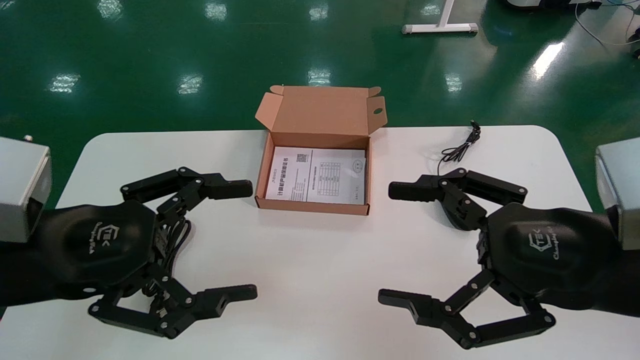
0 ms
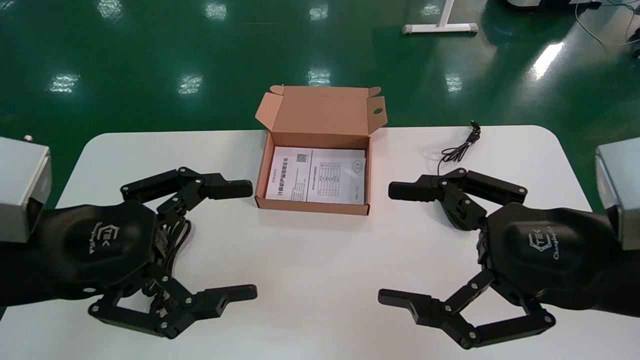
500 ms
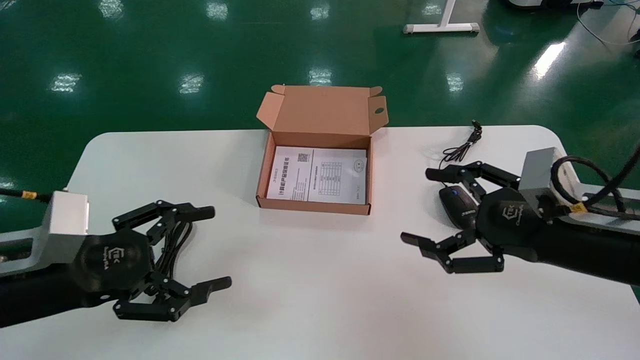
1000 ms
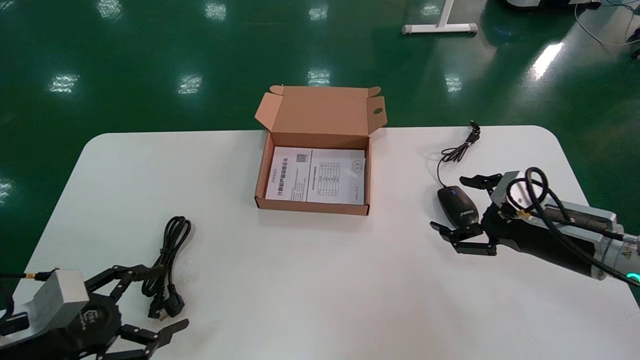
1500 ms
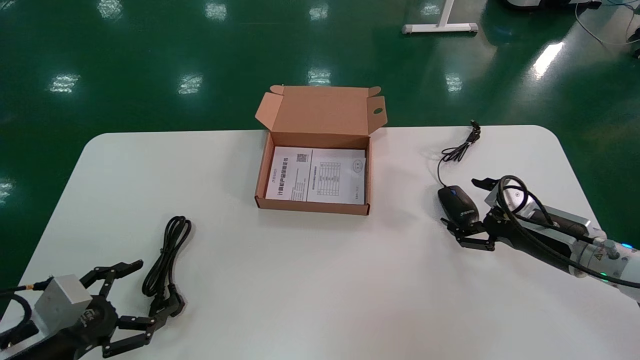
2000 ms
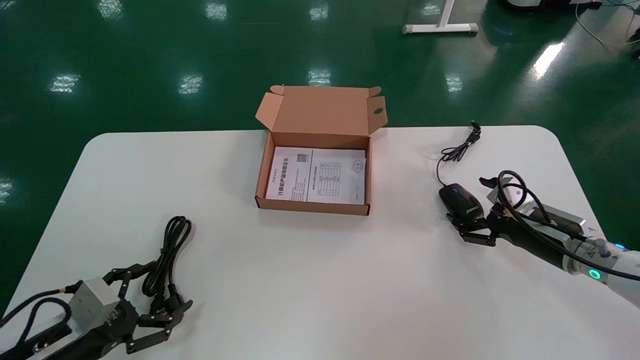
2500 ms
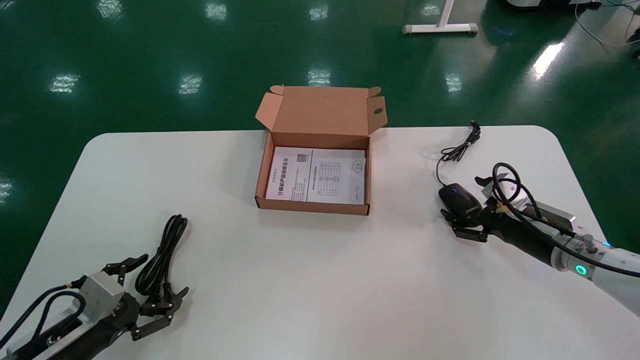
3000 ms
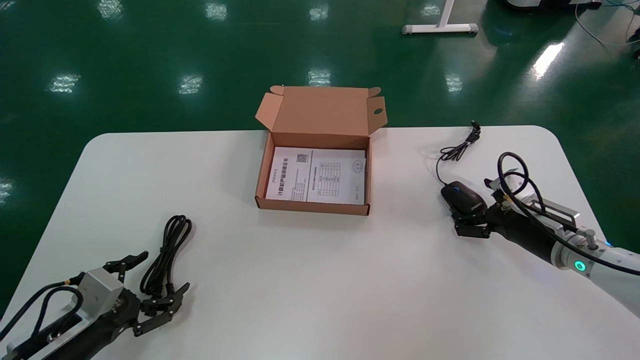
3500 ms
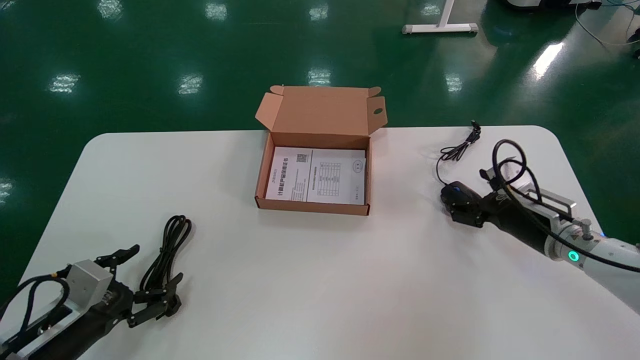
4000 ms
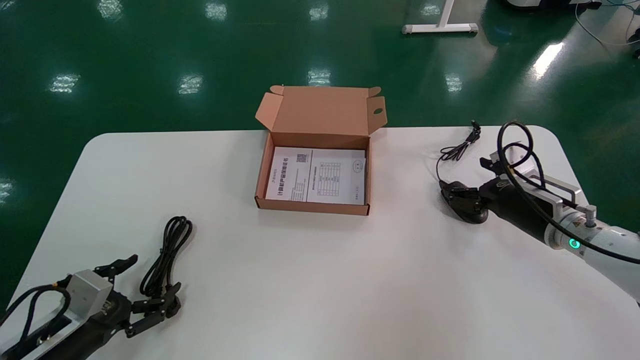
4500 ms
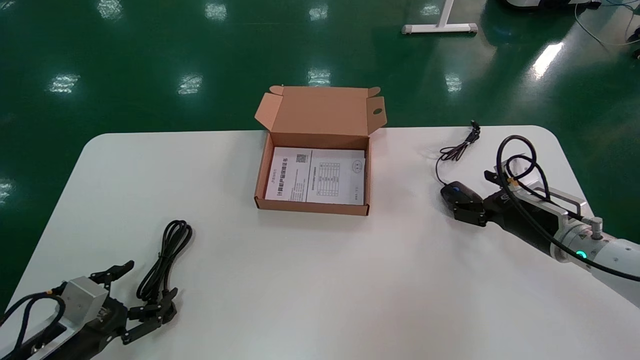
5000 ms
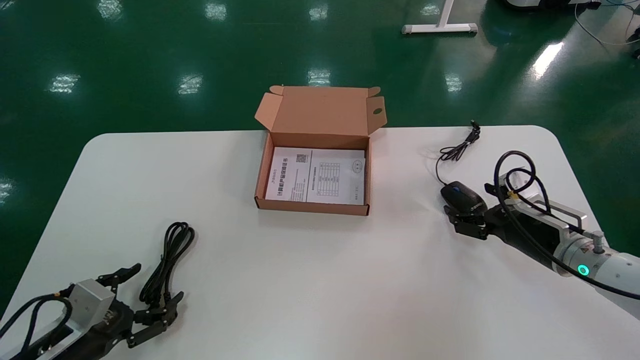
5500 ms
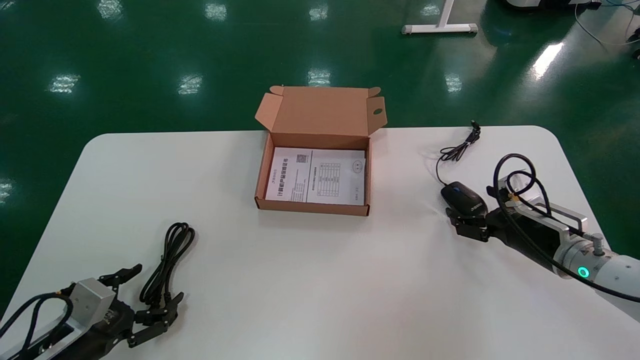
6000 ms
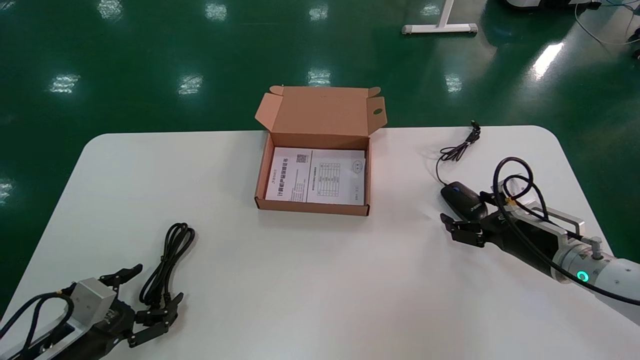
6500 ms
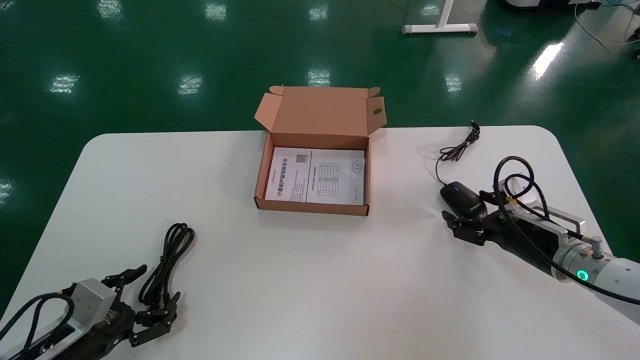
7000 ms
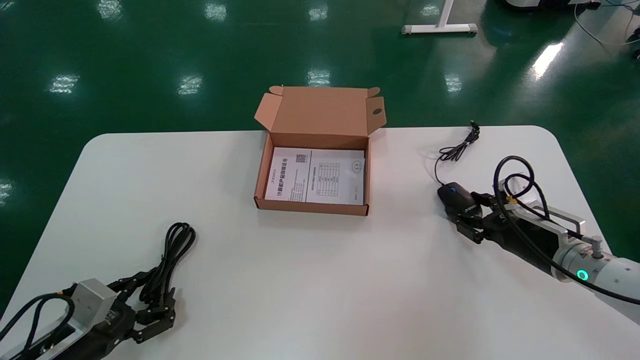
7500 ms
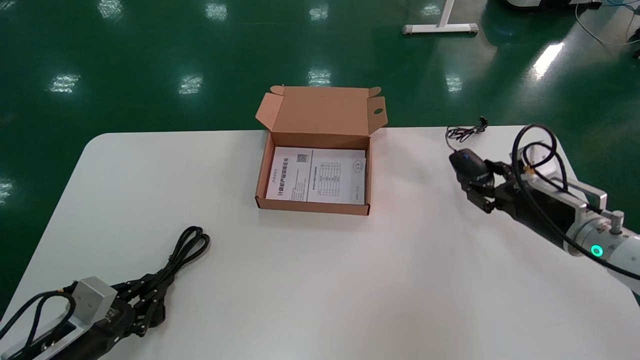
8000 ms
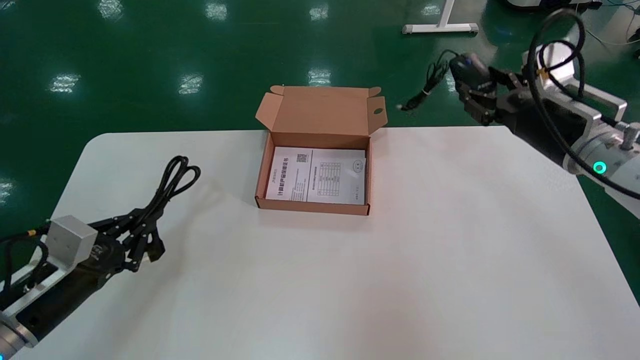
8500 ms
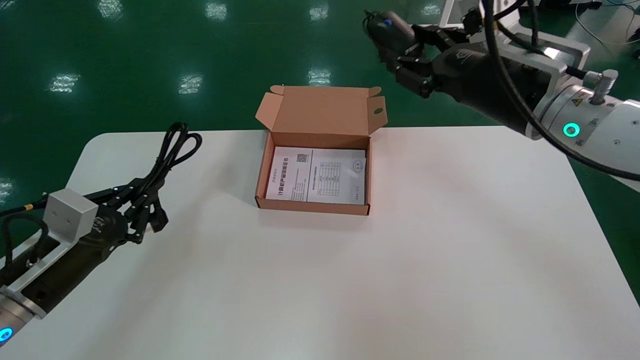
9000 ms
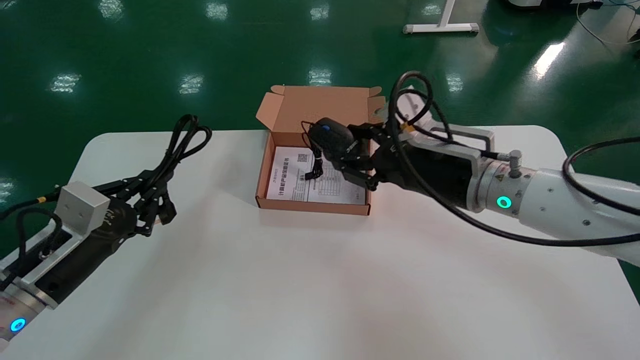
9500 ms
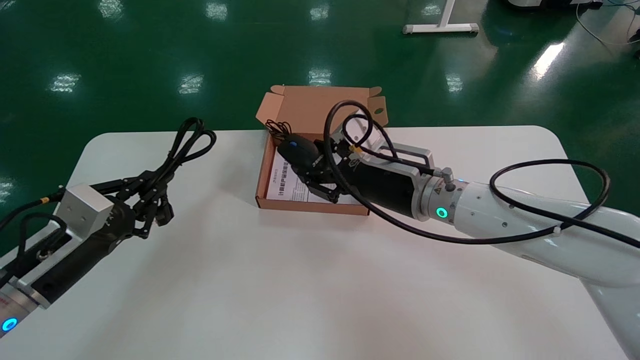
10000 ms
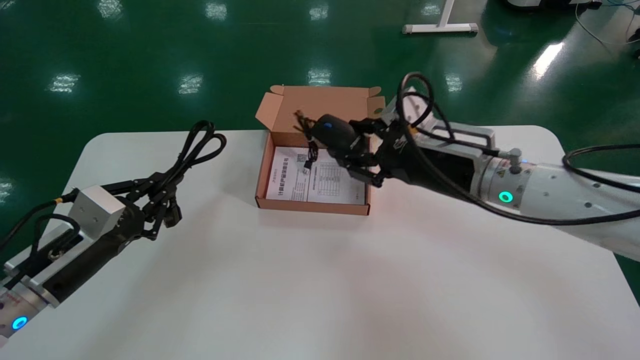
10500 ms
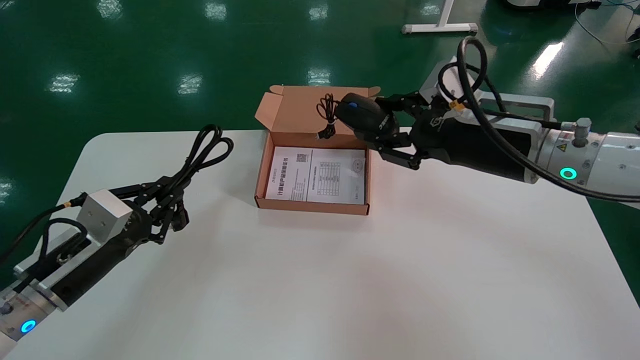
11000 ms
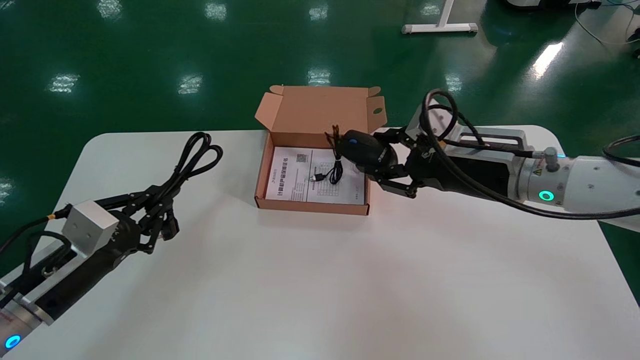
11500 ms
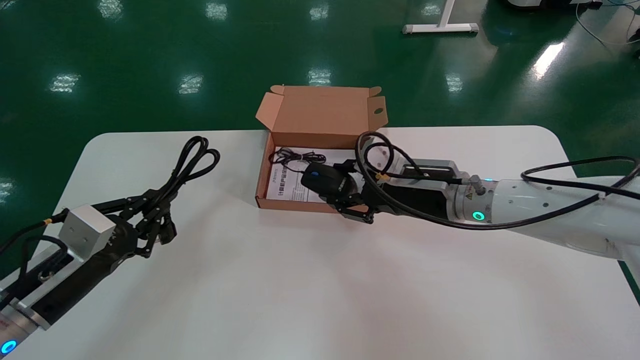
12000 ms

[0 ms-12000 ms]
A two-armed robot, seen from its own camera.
Step, 2000 ms to 8000 ms: Grab and pick up the mouse and power cord from the accessory packaging area.
0 ms to 2000 ms: The right gripper travels forward, downward and to the right by roughly 25 cm. Meanwhile the left gripper moves downward and to the left, roughly 25 cm.
2000 ms to 4000 ms: There are only small adjustments of the grippers.
4000 ms to 6000 ms: The grippers make only small movements.
6000 ms to 8000 ms: The right gripper moves upward, some 5 cm, and closes; the left gripper closes up.
8000 ms to 10000 ms: The left gripper is displaced upward by roughly 10 cm. The right gripper goes approximately 20 cm to the left.

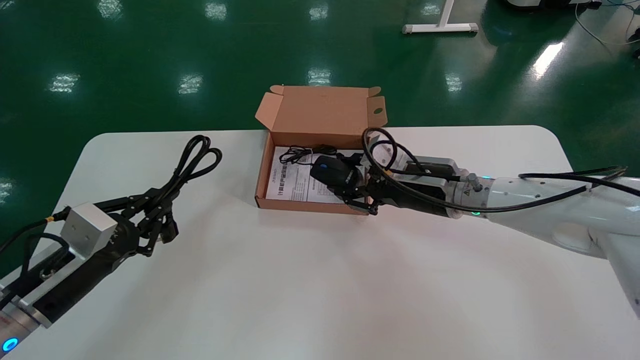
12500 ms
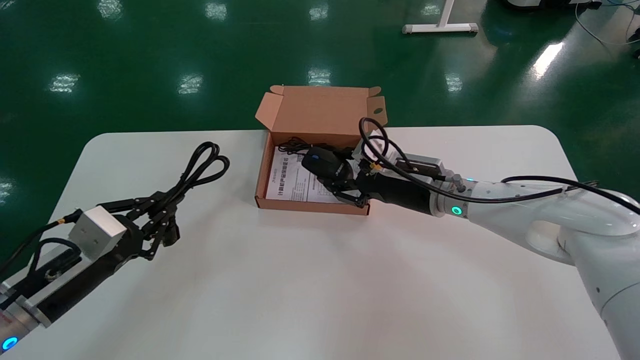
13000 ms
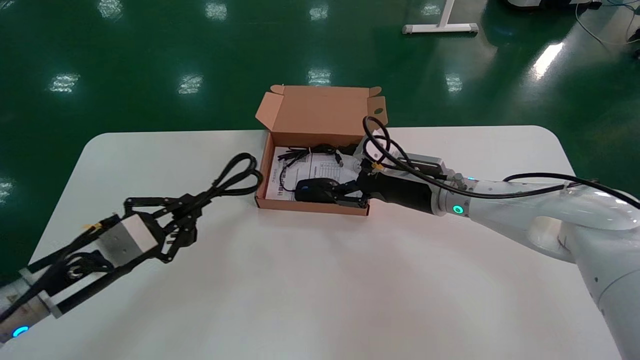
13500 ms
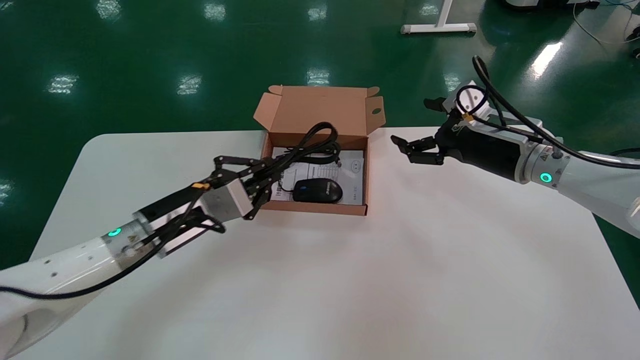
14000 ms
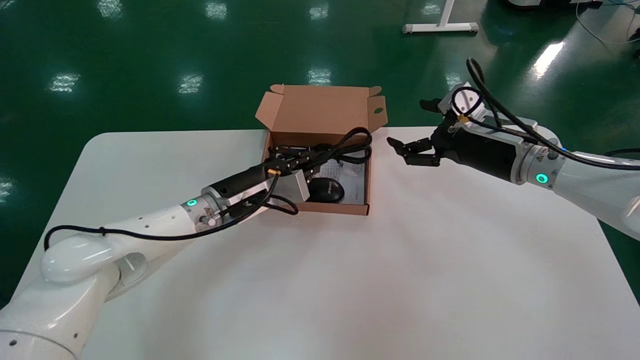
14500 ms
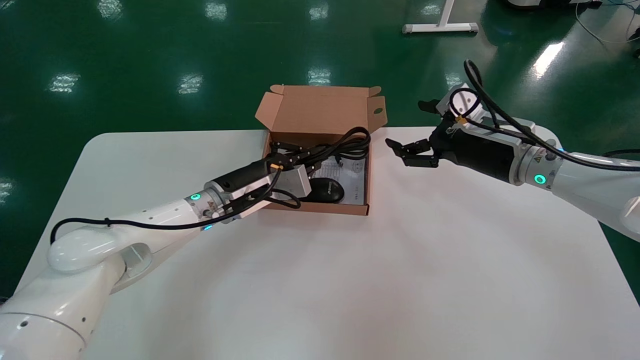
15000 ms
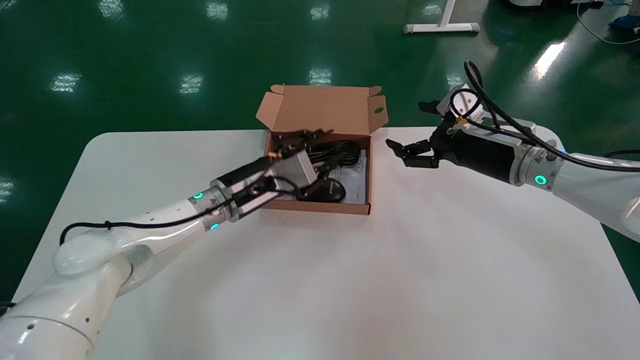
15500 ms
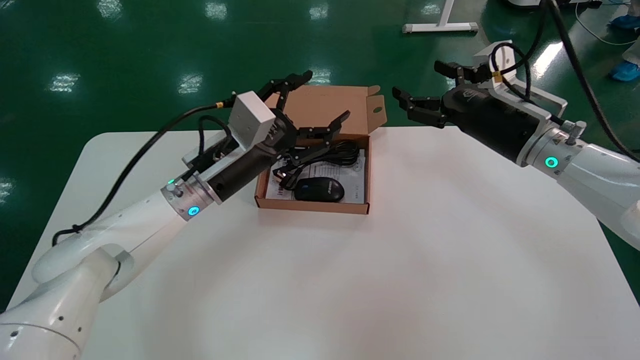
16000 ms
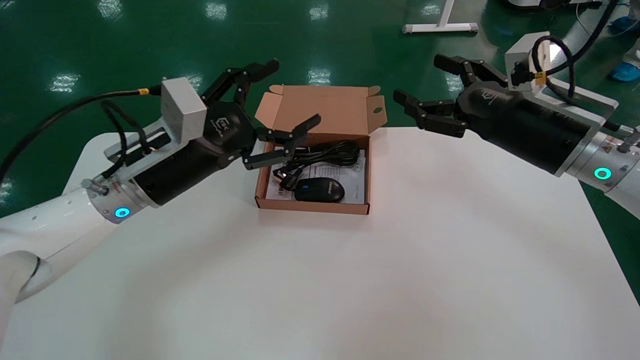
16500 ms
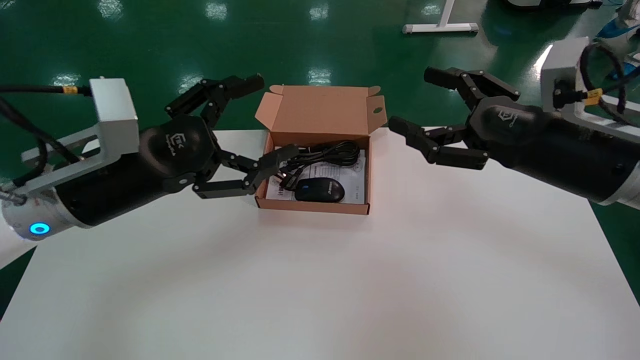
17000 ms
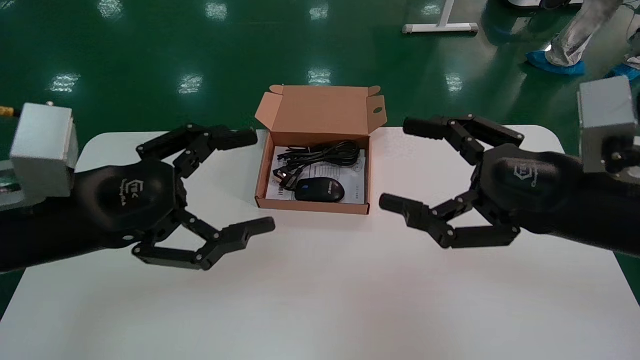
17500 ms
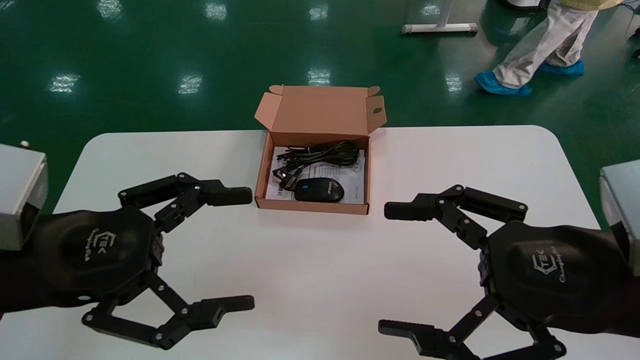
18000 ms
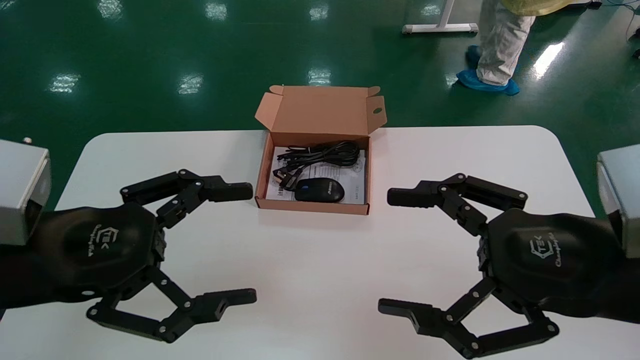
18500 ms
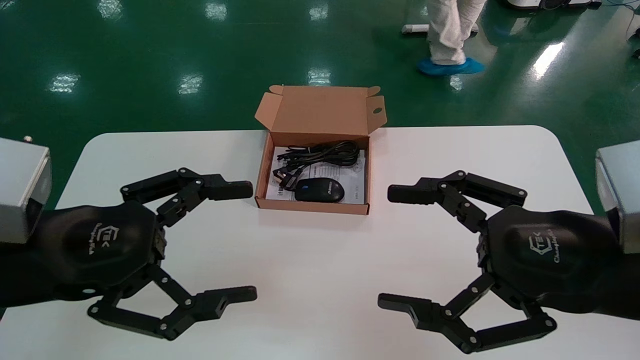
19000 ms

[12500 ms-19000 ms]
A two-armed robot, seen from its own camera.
Step, 12500 ms to 15500 ms: Place the mouse and power cord into the box.
12500 ms to 14500 ms: The right gripper moves to the right, approximately 10 cm, and opens its fingers; the left gripper heads to the right and forward, covering roughly 25 cm.
14500 ms to 17000 ms: The right gripper goes some 15 cm backward, while the left gripper heads backward, upward and to the left, covering roughly 20 cm, and opens.
17000 ms to 19000 ms: Both grippers travel together backward, about 10 cm.
